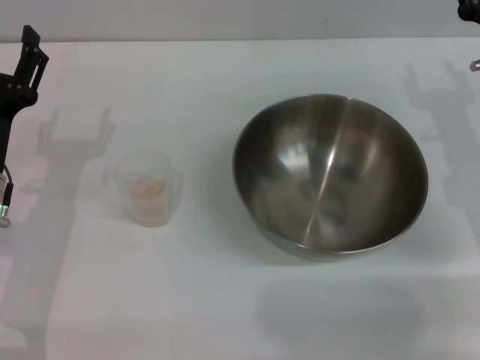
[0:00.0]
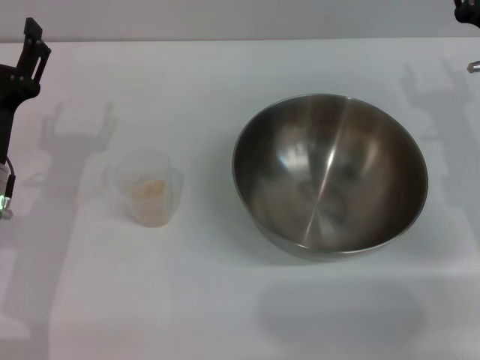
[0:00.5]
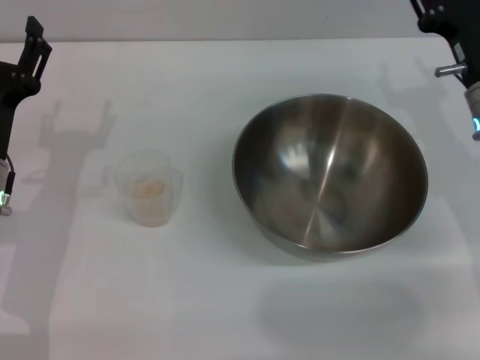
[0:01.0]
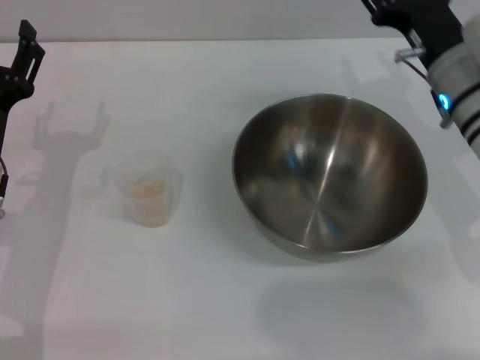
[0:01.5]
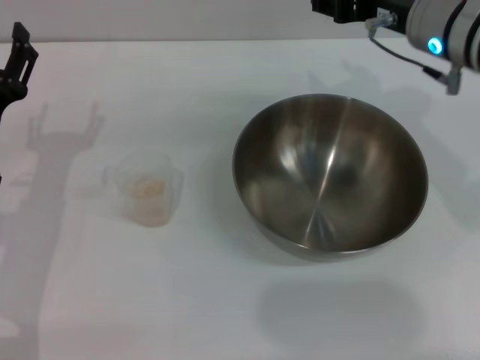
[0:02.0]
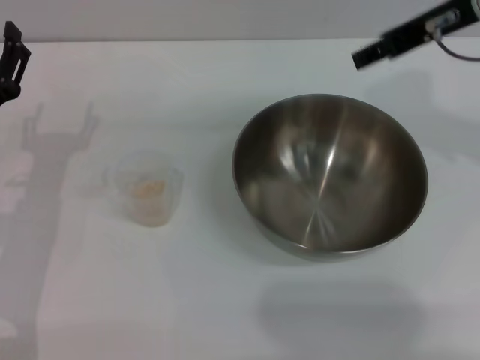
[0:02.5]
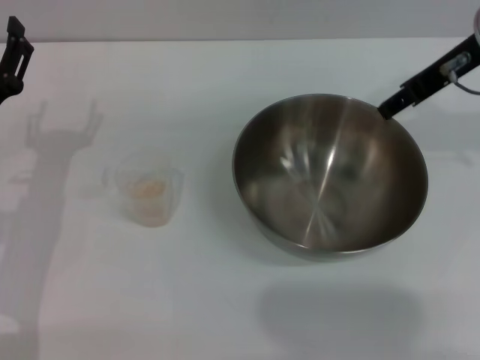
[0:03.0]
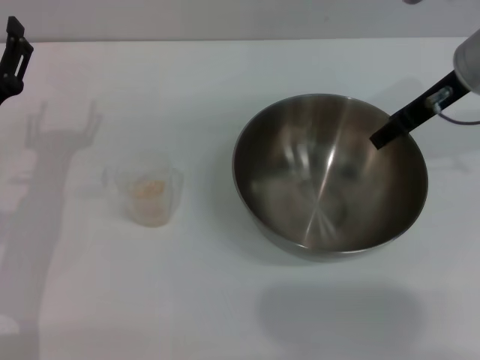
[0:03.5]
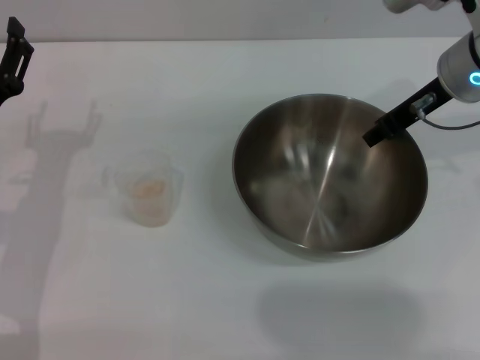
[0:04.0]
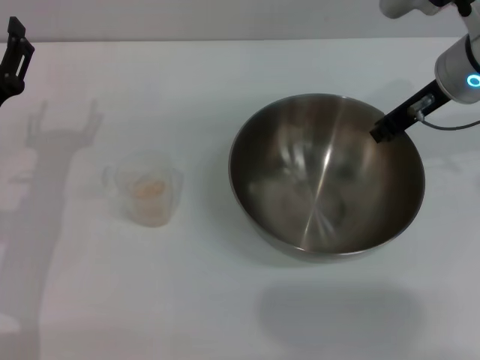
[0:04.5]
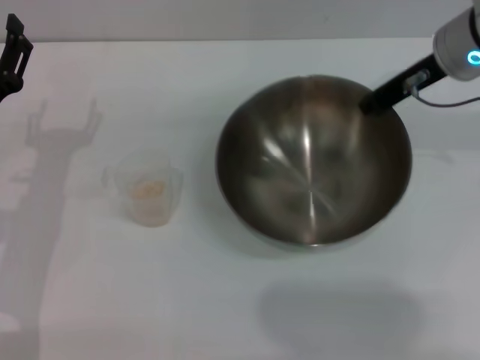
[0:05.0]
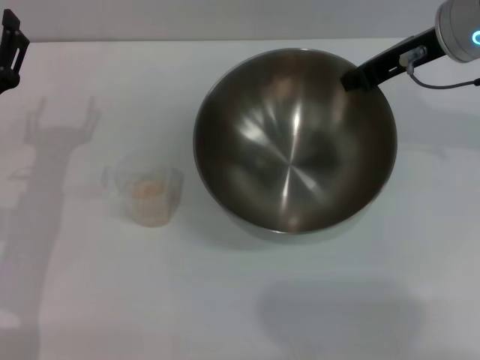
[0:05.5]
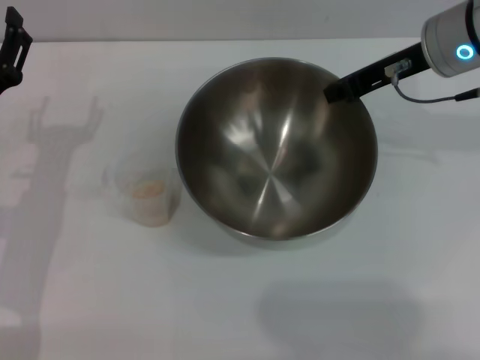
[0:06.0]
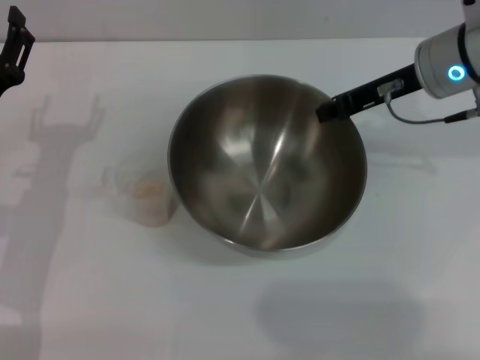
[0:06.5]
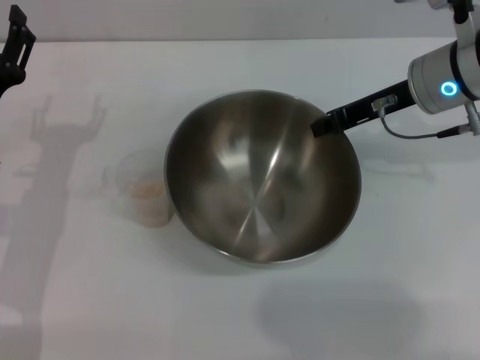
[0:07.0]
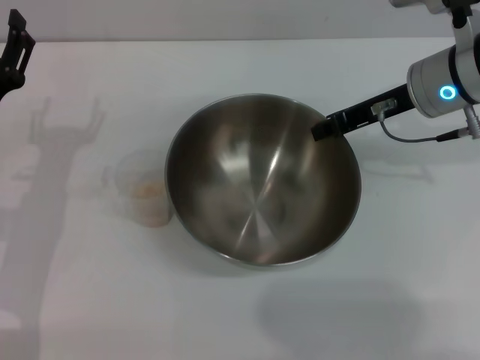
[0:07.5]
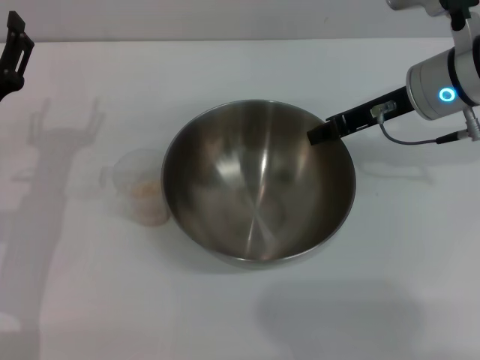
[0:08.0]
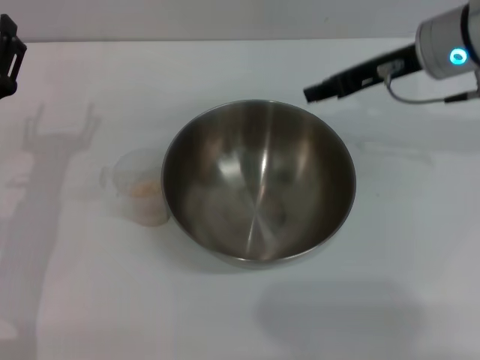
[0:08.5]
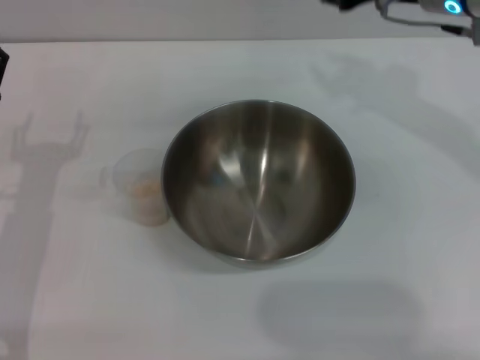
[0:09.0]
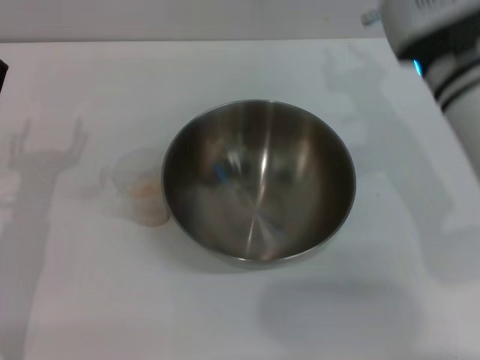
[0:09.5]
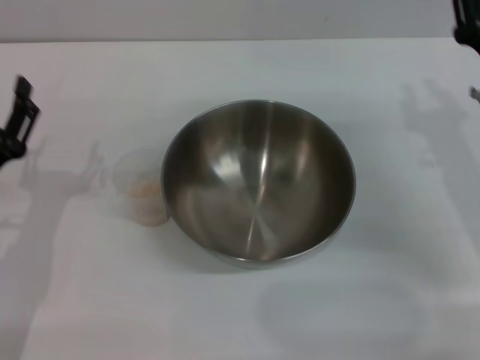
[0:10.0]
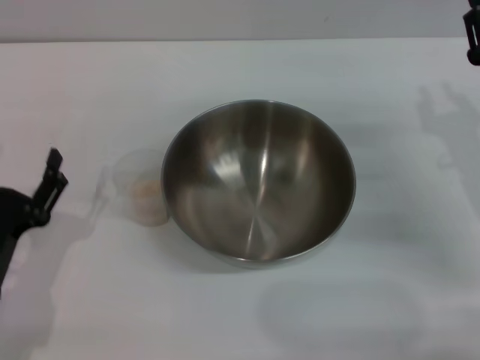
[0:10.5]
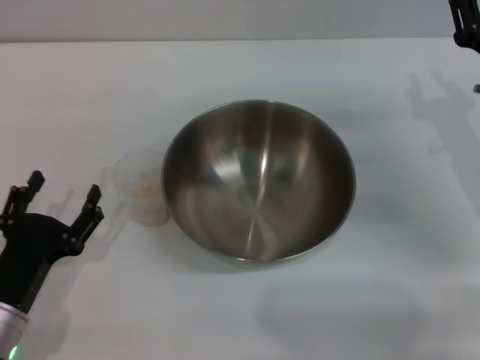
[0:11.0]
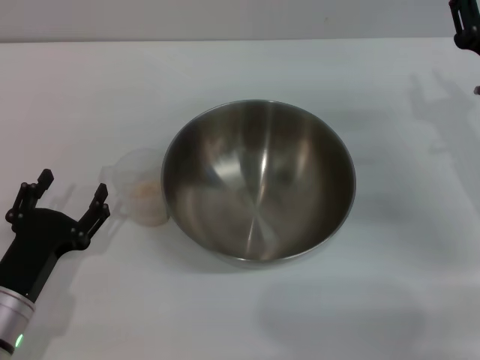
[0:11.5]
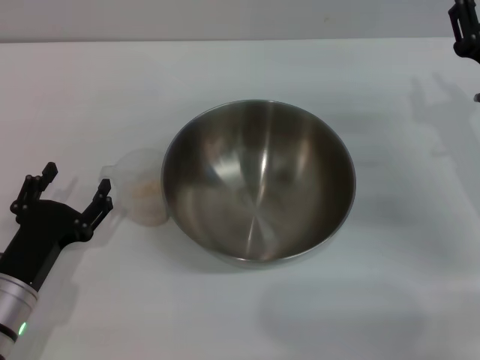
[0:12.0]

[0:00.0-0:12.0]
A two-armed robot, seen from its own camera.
Task of the whole recording: Place the bowl in the middle of the table with one hand and pour the rice from the grain cup into it with the other hand.
Step, 0:00.0 to 0:05.5: Pick up the bowl with the right gripper.
Step, 0:06.0 to 0:09.5: Place the bowl in the center of view with the right gripper.
0:00.0 to 0:02.0: The right gripper travels upward and to the left by approximately 15 cm.
0:02.0 to 0:04.0: The right gripper goes upward and returns, roughly 5 cm each way.
0:04.0 to 0:06.0: The right gripper closes up.
0:08.0 to 0:10.0: The right gripper shifts approximately 15 cm backward, downward and to the right, and opens up, while the left gripper travels backward by roughly 5 cm.
0:10.0 to 0:12.0: The left gripper travels downward by about 5 cm.

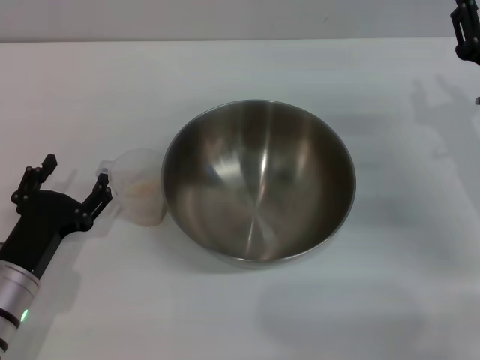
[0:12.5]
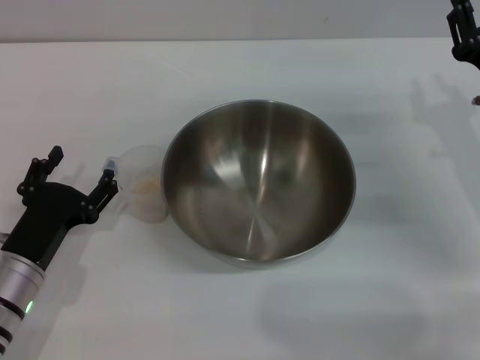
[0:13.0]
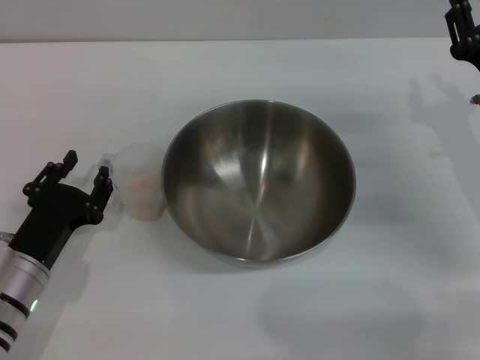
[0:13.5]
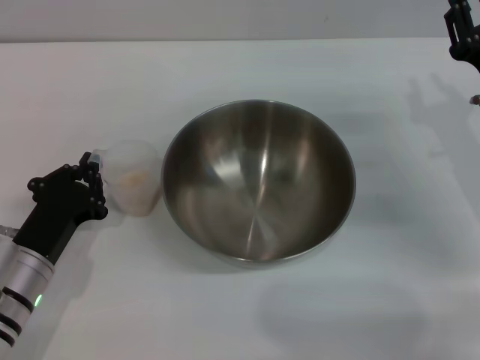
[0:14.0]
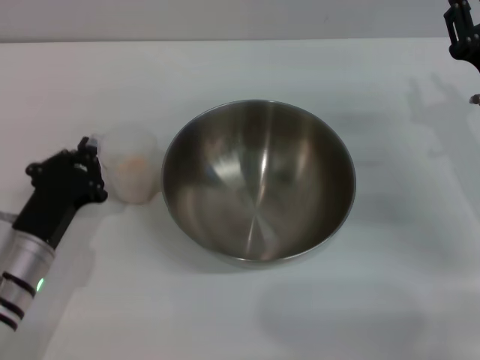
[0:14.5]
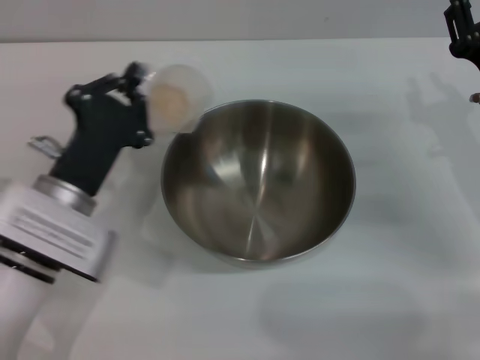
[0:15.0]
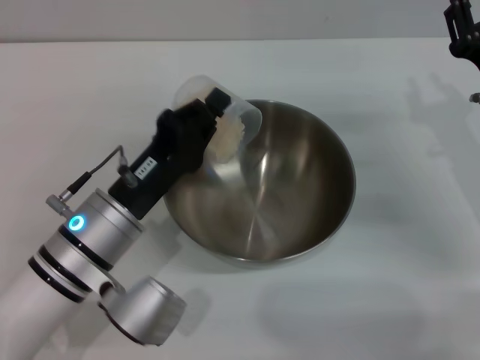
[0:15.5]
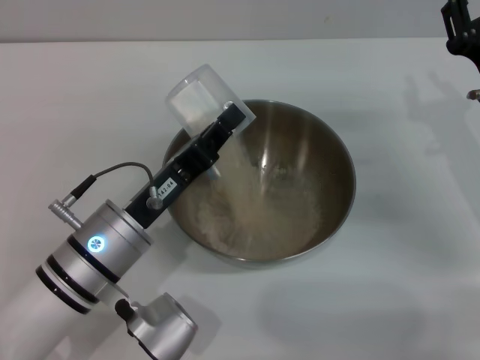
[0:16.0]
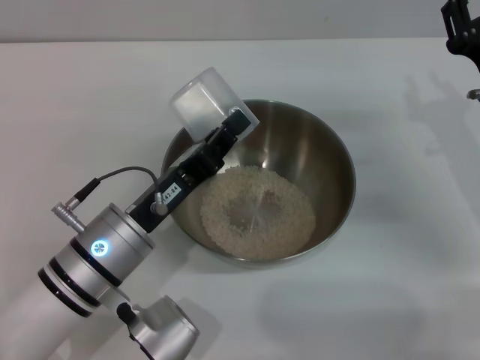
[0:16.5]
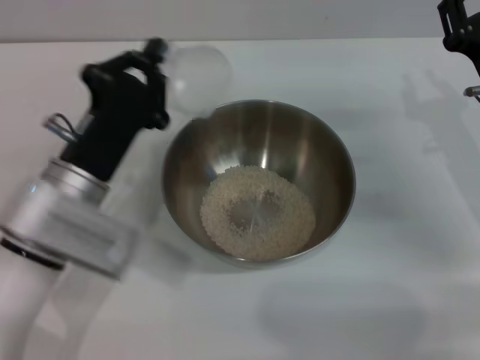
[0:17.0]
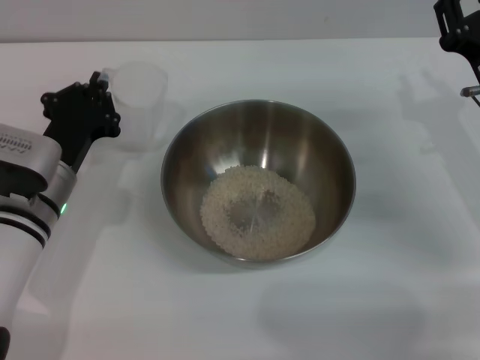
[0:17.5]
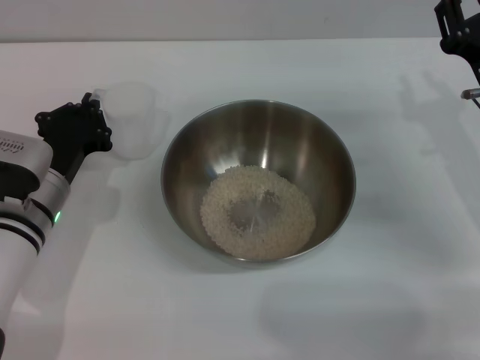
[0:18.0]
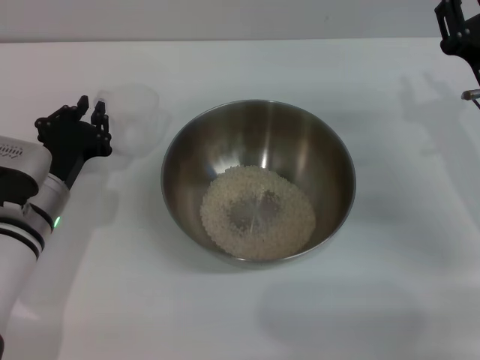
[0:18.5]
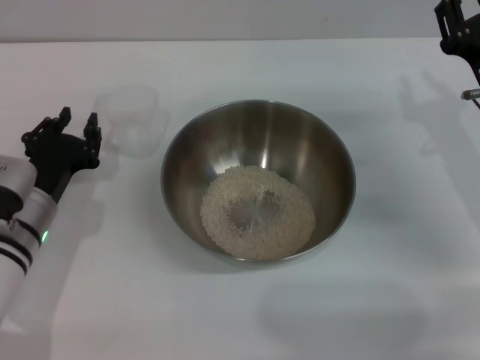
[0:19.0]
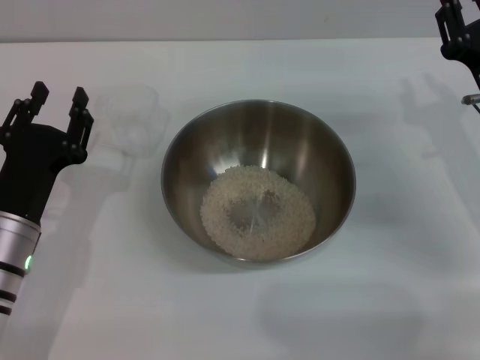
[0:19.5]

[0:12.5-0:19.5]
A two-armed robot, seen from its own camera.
Task of the whole recording: Place the bowl in the middle of the table with one hand and pour the rice from the grain cup into it with the other hand.
Step, 0:12.5 to 0:14.5: Pick up the cup with rice in it with the left gripper.
Step, 0:15.0 to 0:17.0: Pour the rice from the cup into the bowl with the left gripper.
Step, 0:17.5 to 0:19.0: Place the cup on the table with the left gripper.
0:12.5 to 0:14.5: The left gripper closes.
0:14.5 to 0:16.0: The left gripper heads to the right, covering about 10 cm.
0:16.0 to 0:17.5: The left gripper shifts some 10 cm to the left and forward.
0:17.5 to 0:19.5: The left gripper travels backward by roughly 5 cm, and opens.
